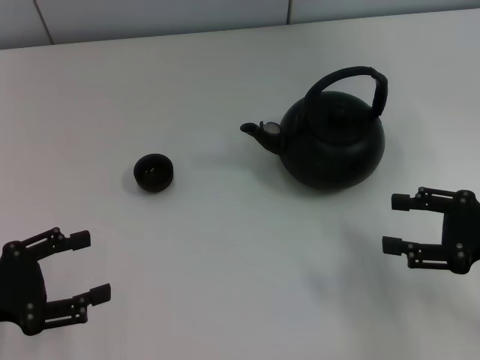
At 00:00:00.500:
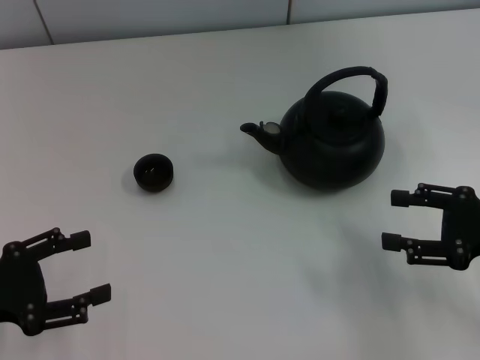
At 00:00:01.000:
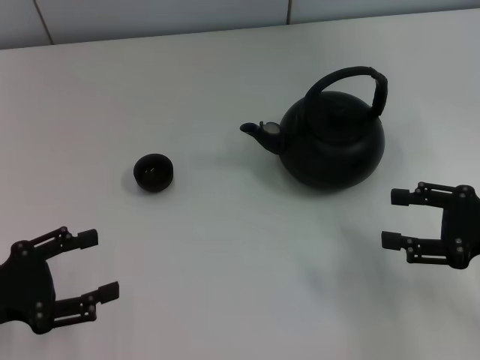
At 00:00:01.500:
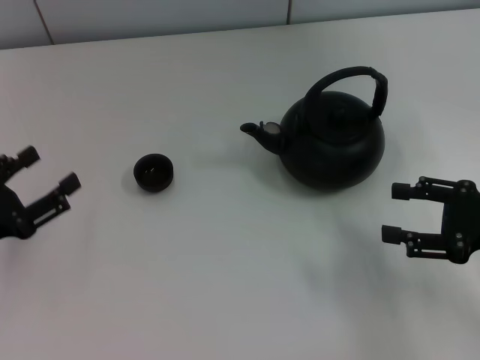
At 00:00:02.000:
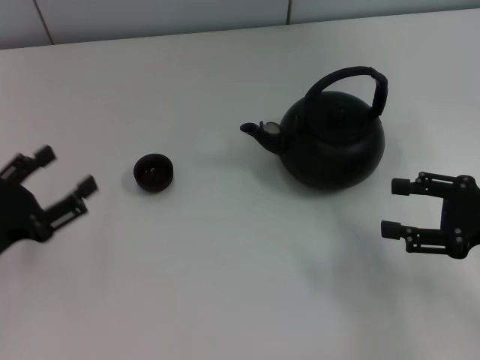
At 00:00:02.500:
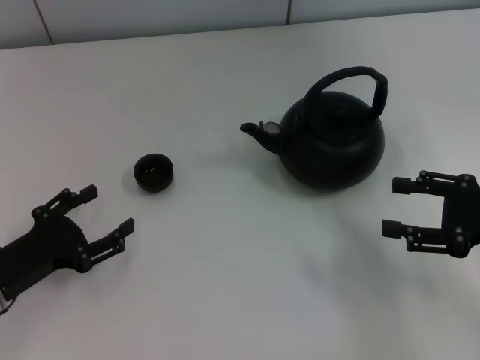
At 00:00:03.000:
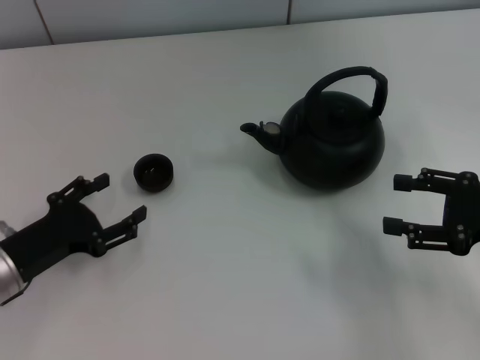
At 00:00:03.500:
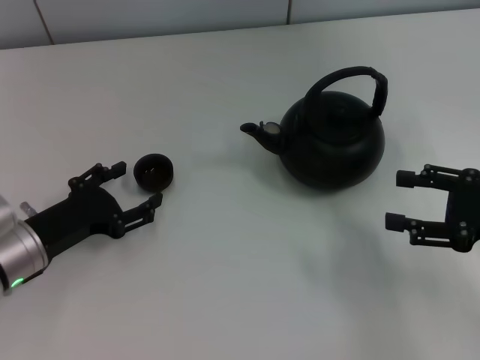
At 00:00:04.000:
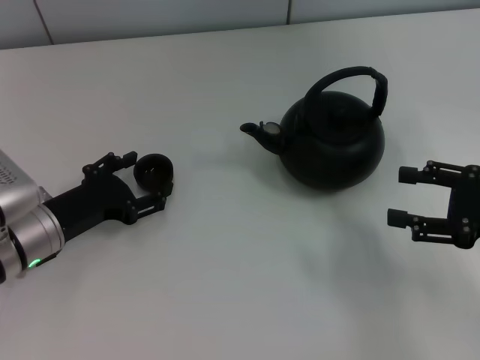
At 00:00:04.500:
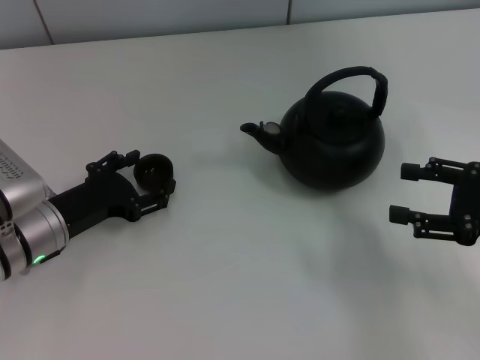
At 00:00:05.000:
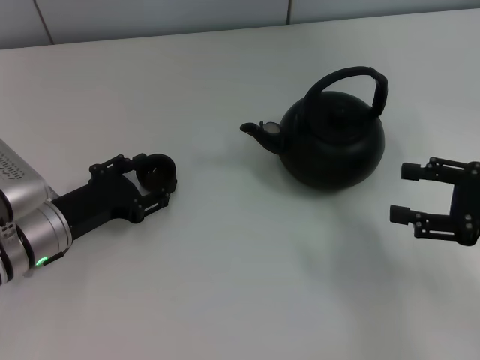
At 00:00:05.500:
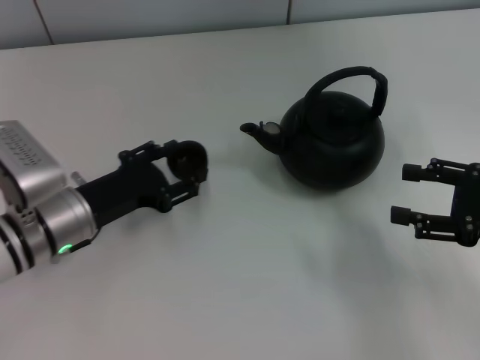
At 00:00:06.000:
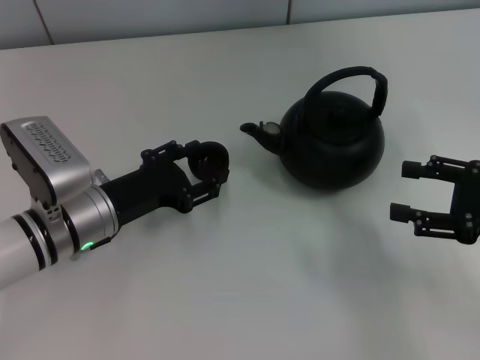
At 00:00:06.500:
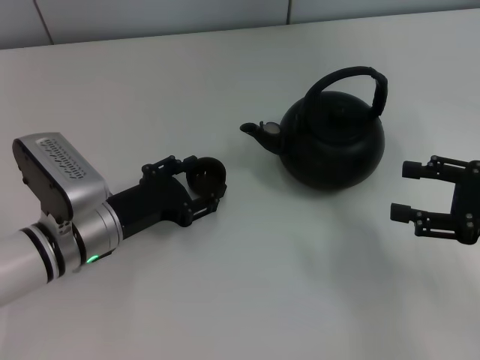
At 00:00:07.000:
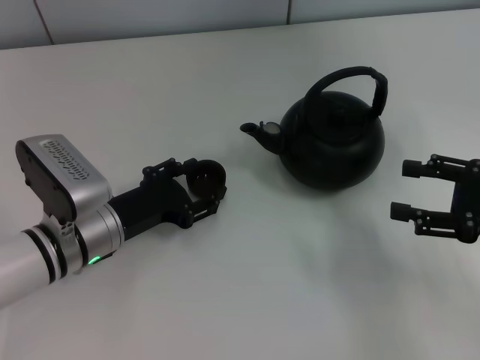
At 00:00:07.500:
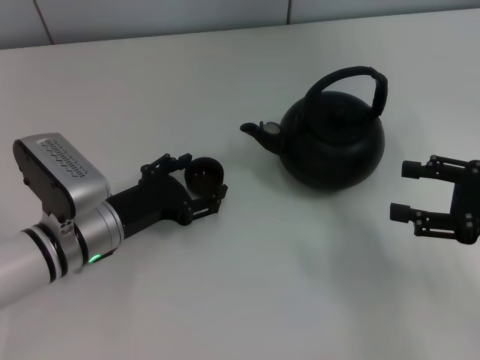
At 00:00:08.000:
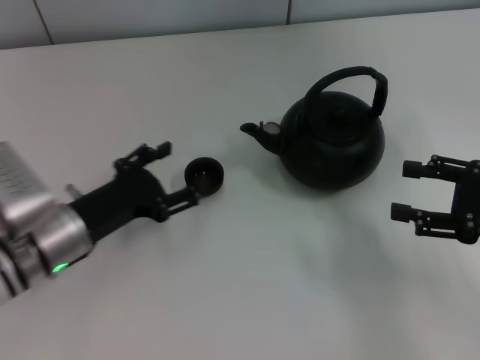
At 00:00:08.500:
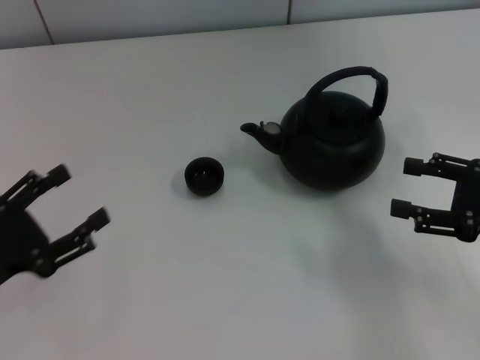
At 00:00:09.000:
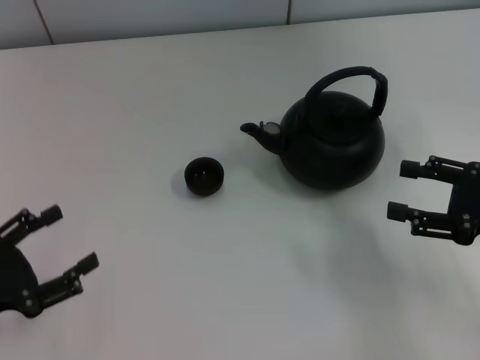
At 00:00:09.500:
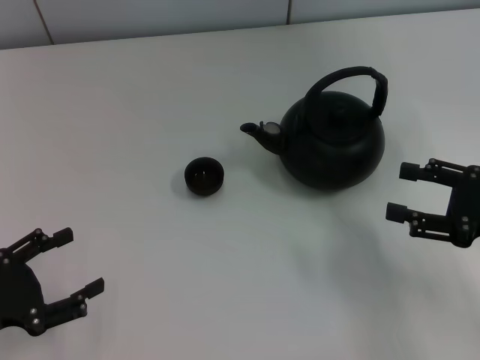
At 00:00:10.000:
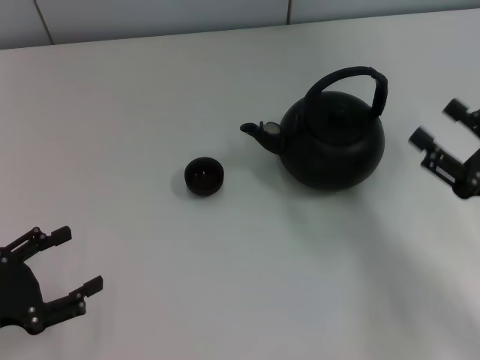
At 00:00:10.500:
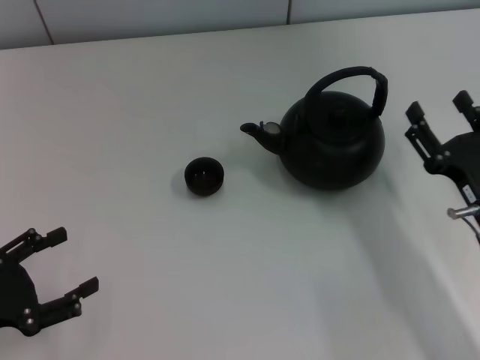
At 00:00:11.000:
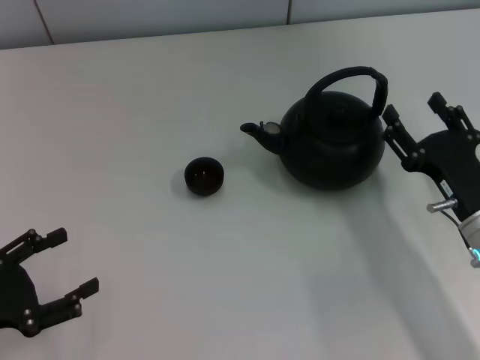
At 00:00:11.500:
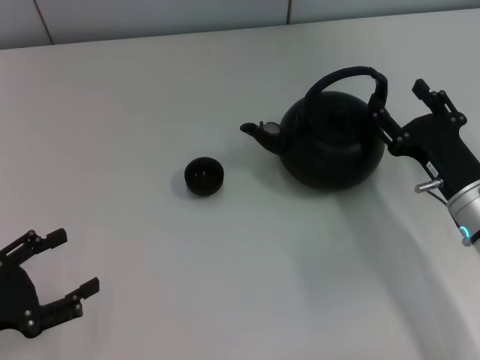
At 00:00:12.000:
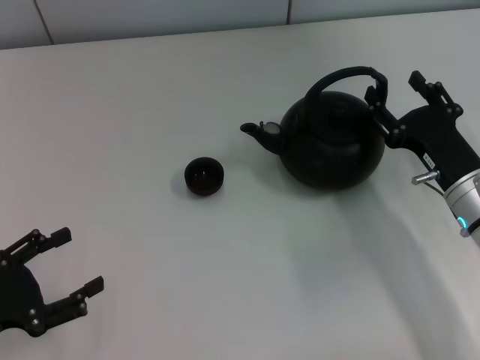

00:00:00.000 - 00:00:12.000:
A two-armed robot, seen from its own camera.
Task of the whole recording: Grasp the handle of the teapot with one hand and pour tea into the teacup.
Step, 00:00:00.000 - 00:00:05.000: Pick up the teacup with the left gripper.
Step, 00:00:05.500 - 00:00:07.500: Place the teacup in the center of view with the left gripper.
00:00:02.000 - 00:00:04.000: The left gripper shifts some 10 cm to the right and forward.
00:00:04.000 - 00:00:06.000: The left gripper travels to the right by some 5 cm, and closes up.
00:00:06.000 - 00:00:08.000: The left gripper opens.
00:00:08.000 - 00:00:10.000: The right gripper shifts by some 5 cm. Meanwhile the left gripper is displaced to the left and backward by some 15 cm.
00:00:10.000 - 00:00:12.000: The right gripper moves forward and to the left, some 10 cm.

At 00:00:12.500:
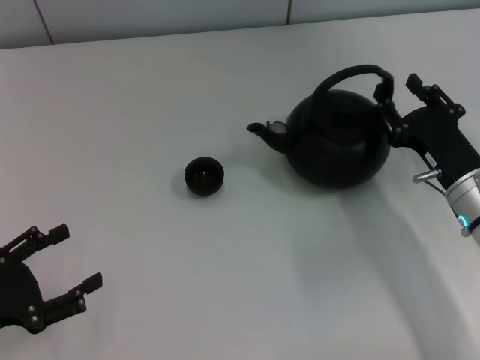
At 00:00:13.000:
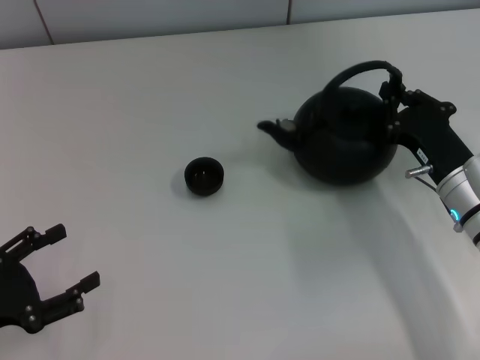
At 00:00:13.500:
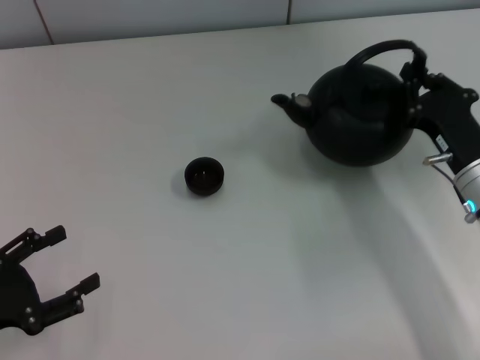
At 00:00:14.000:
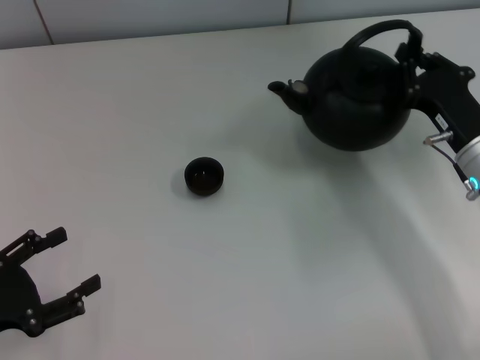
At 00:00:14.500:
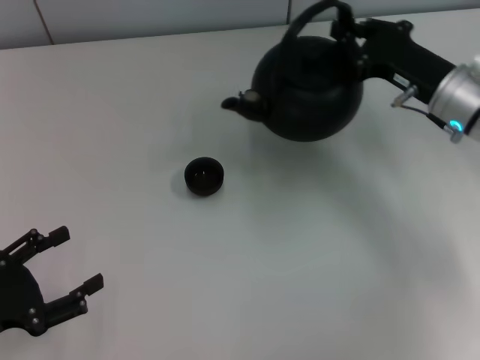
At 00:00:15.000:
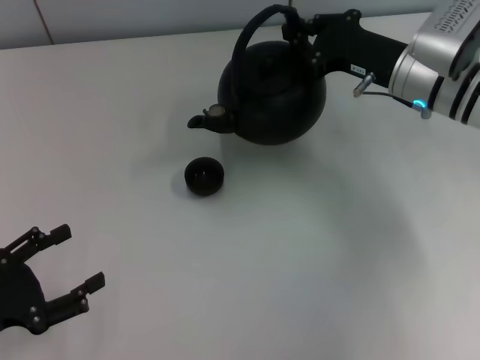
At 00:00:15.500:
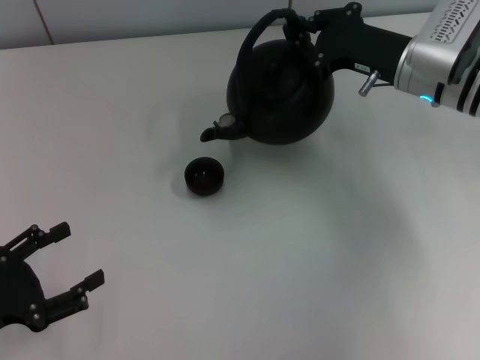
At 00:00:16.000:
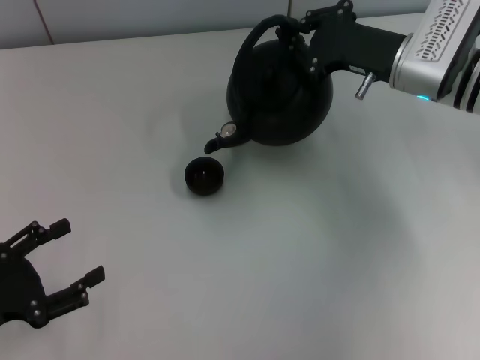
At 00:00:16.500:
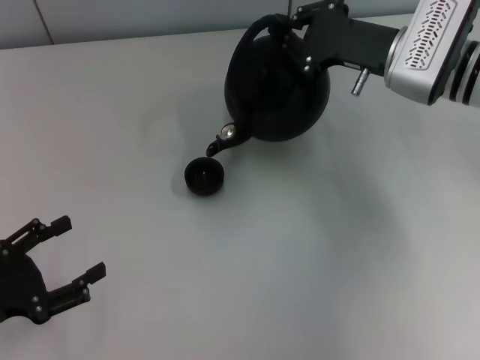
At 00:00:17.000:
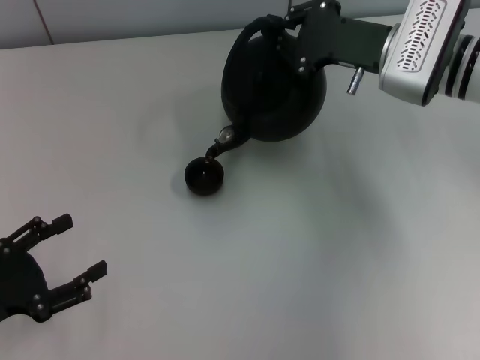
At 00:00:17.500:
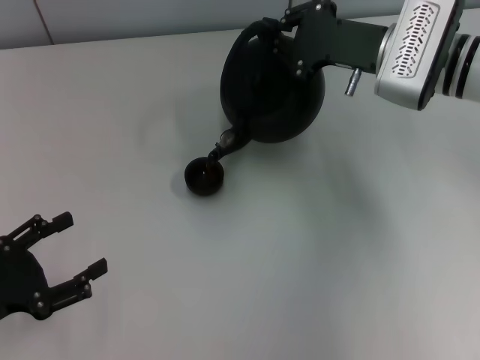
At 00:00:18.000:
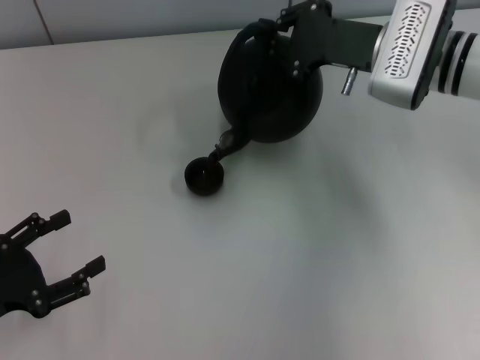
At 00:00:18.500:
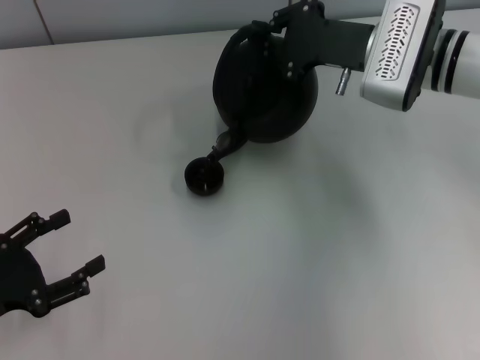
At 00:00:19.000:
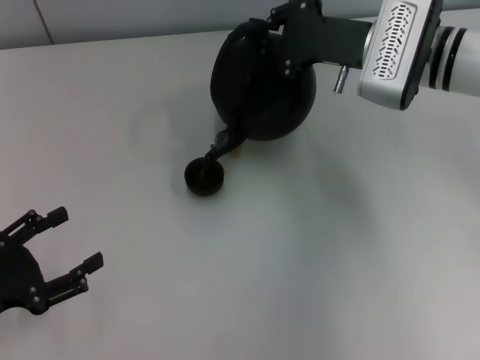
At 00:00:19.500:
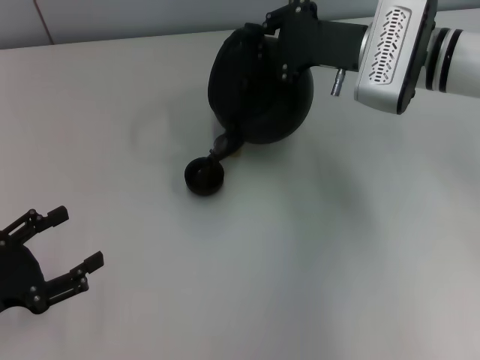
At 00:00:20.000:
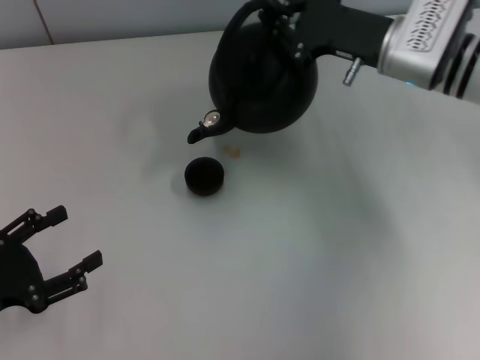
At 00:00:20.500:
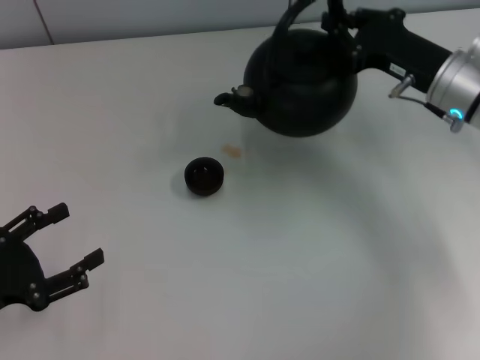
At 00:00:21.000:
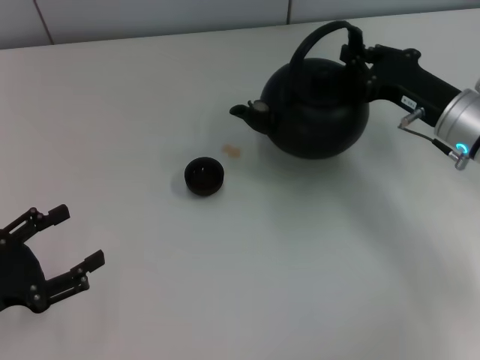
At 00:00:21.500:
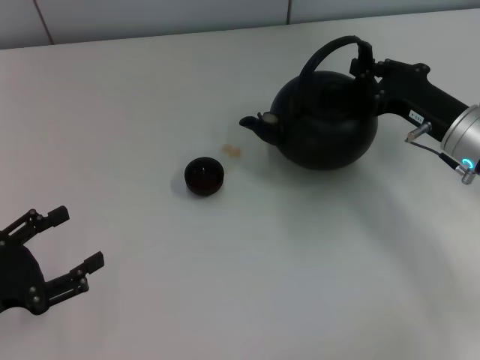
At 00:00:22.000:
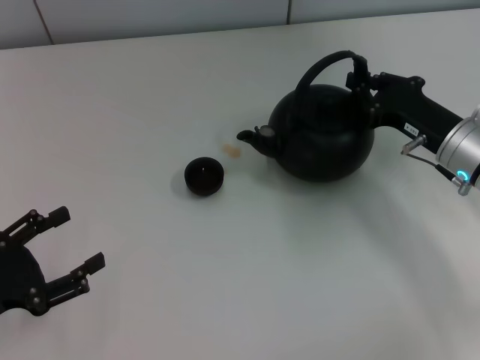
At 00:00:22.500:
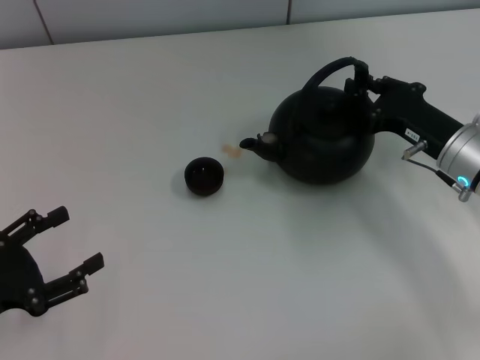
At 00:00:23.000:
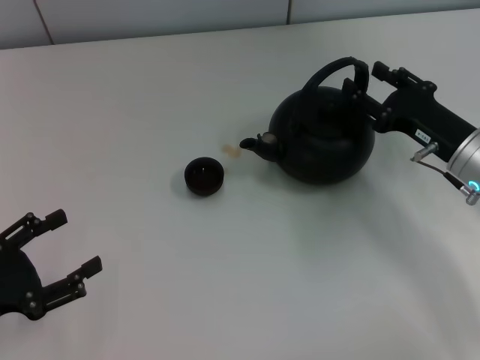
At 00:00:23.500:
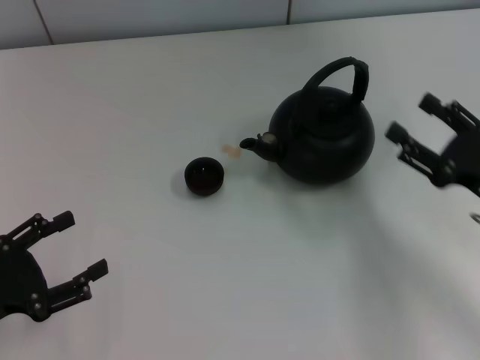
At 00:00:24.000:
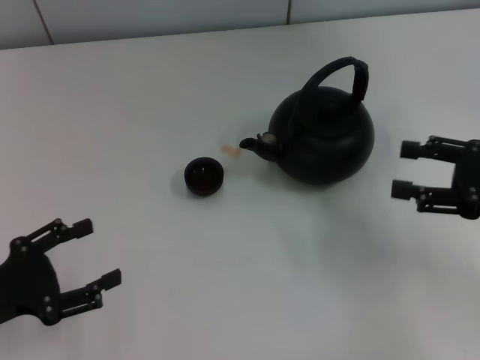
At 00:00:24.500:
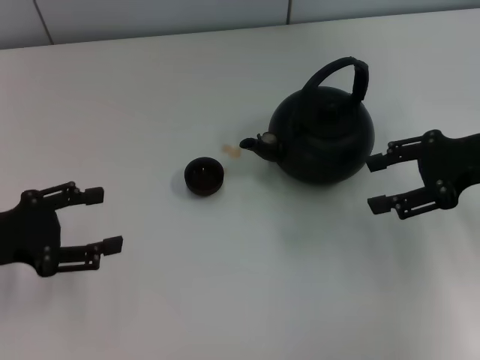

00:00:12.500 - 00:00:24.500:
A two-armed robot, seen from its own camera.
Task of the whole recording: Grasp the handle of the teapot with one hand and pour tea into the teacup.
Step, 00:00:20.500 - 00:00:23.000: Put down the teapot with the right gripper.
00:00:12.500 - 00:00:14.500: The right gripper goes roughly 10 cm forward and upward, and closes.
00:00:14.500 - 00:00:16.500: The right gripper moves roughly 5 cm.
00:00:16.500 - 00:00:18.500: The grippers move only a little.
00:00:18.500 - 00:00:20.500: The right gripper goes approximately 5 cm to the right.
00:00:20.500 - 00:00:22.500: The right gripper goes approximately 5 cm downward.
00:00:22.500 - 00:00:24.500: The left gripper goes approximately 10 cm forward; the right gripper is displaced upward and to the right by approximately 10 cm, and opens up.
